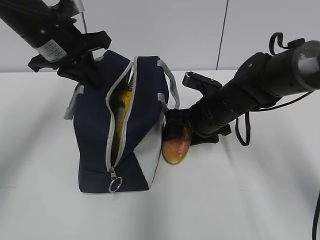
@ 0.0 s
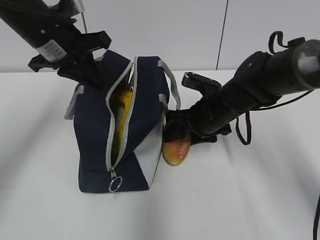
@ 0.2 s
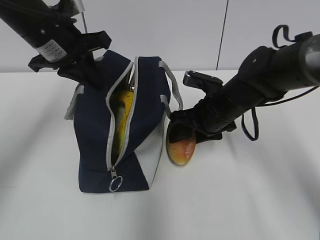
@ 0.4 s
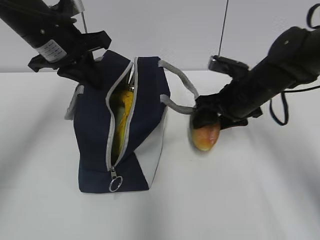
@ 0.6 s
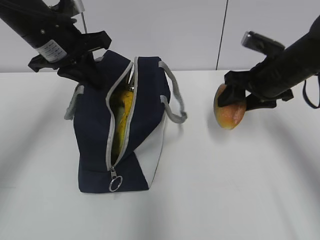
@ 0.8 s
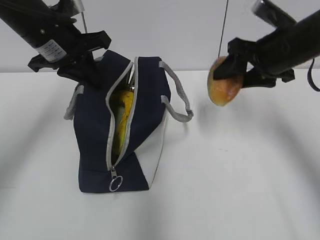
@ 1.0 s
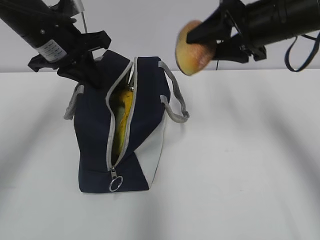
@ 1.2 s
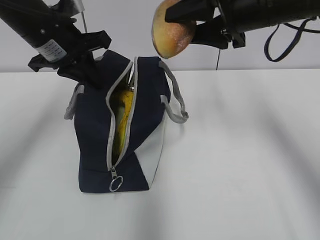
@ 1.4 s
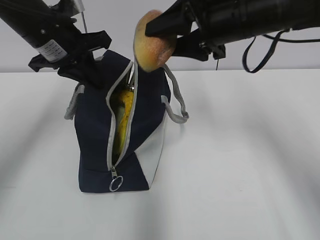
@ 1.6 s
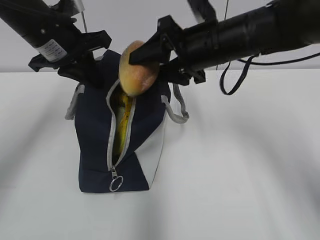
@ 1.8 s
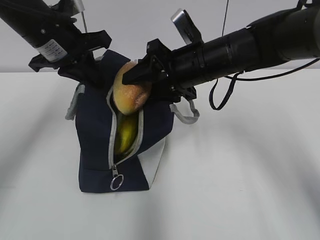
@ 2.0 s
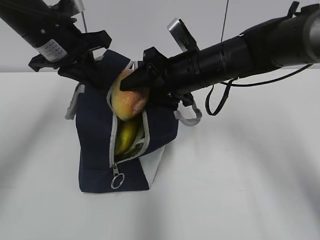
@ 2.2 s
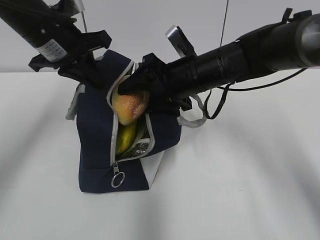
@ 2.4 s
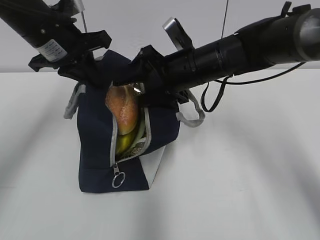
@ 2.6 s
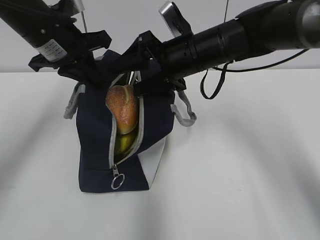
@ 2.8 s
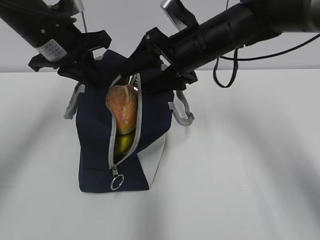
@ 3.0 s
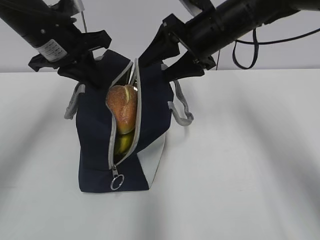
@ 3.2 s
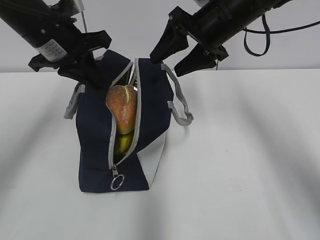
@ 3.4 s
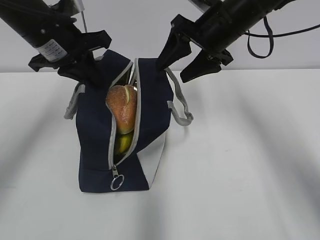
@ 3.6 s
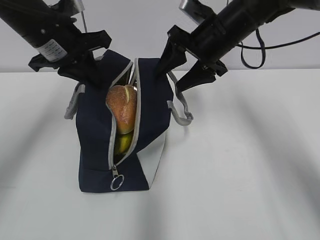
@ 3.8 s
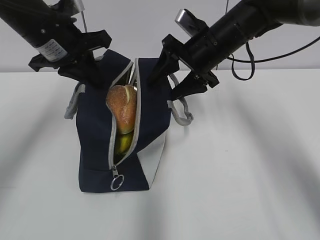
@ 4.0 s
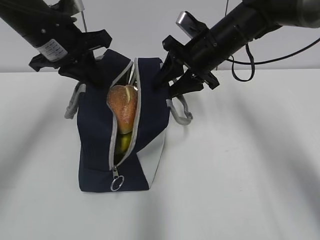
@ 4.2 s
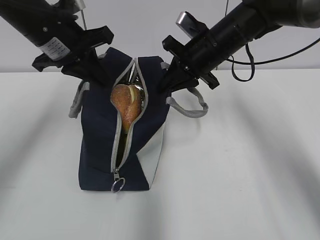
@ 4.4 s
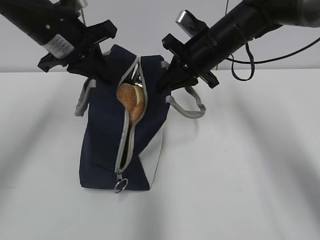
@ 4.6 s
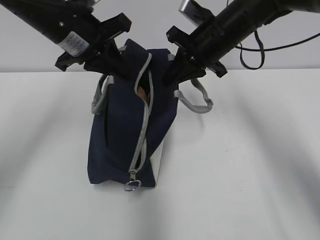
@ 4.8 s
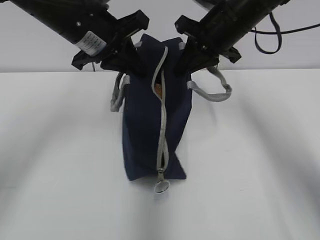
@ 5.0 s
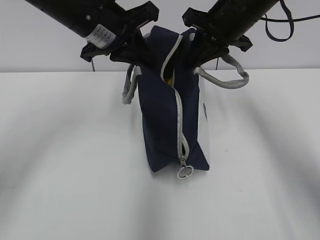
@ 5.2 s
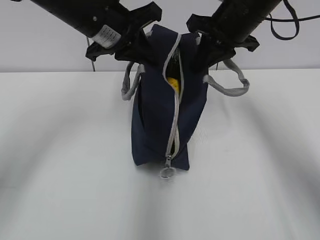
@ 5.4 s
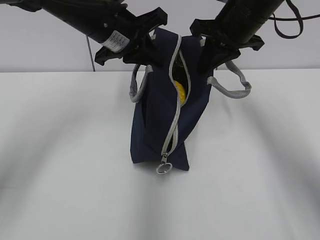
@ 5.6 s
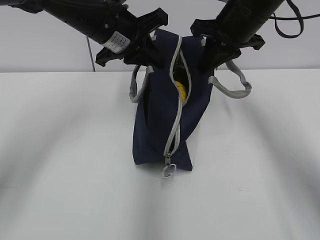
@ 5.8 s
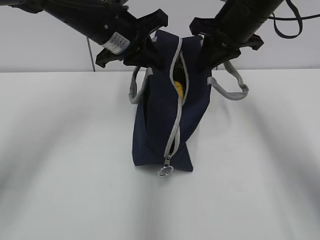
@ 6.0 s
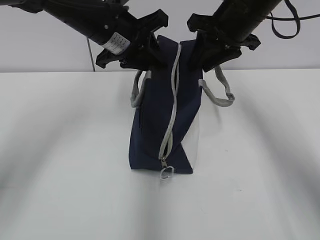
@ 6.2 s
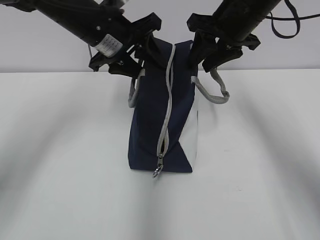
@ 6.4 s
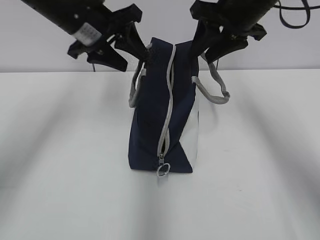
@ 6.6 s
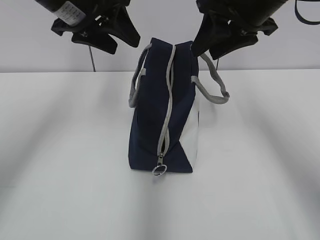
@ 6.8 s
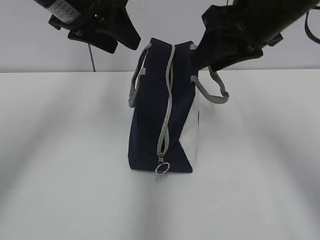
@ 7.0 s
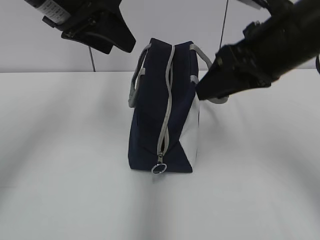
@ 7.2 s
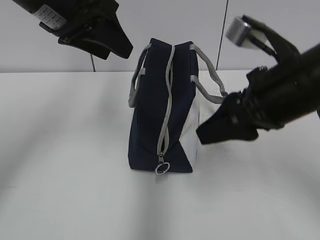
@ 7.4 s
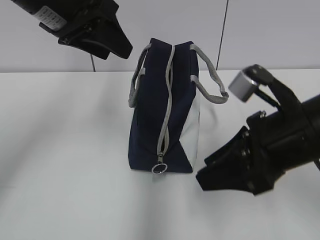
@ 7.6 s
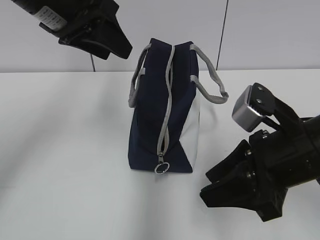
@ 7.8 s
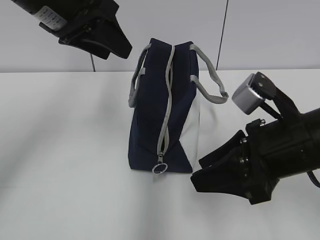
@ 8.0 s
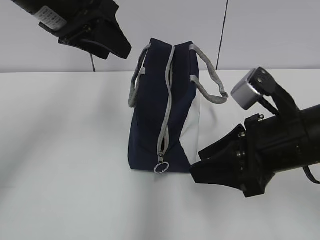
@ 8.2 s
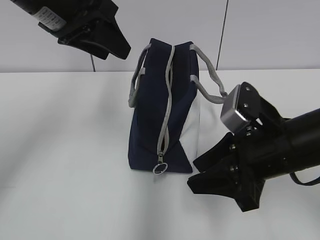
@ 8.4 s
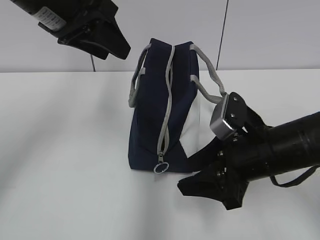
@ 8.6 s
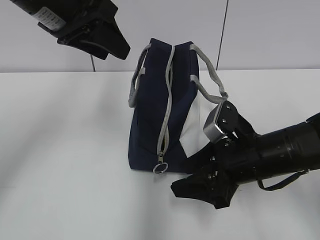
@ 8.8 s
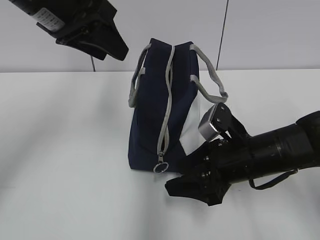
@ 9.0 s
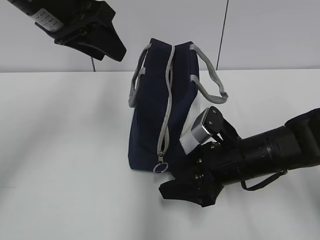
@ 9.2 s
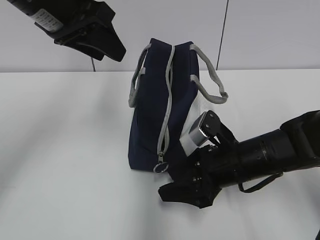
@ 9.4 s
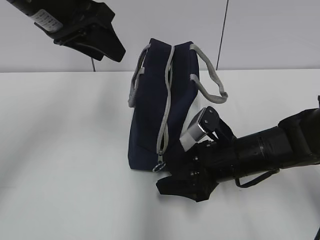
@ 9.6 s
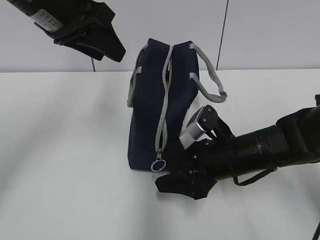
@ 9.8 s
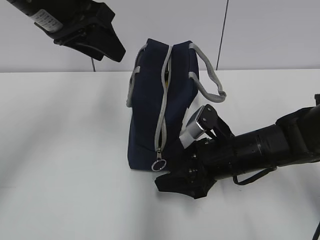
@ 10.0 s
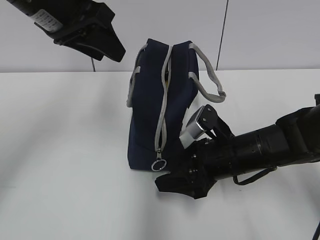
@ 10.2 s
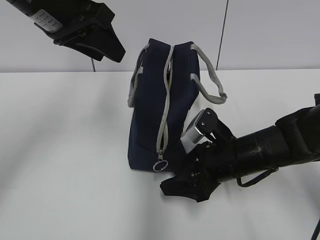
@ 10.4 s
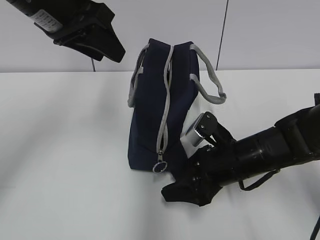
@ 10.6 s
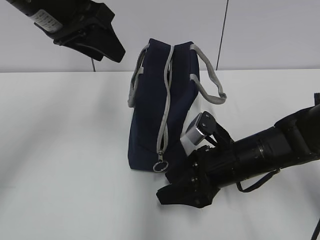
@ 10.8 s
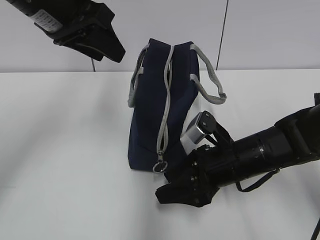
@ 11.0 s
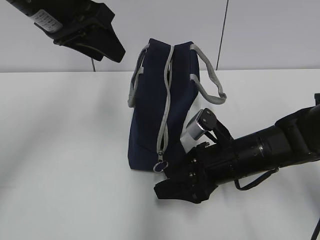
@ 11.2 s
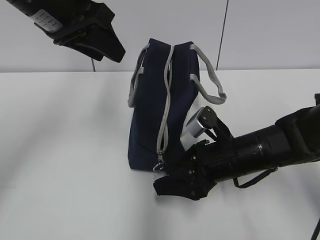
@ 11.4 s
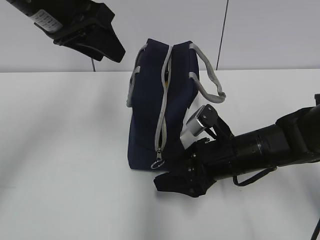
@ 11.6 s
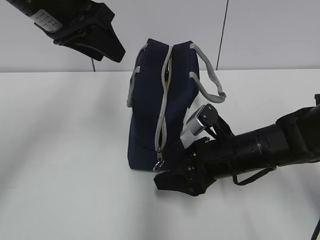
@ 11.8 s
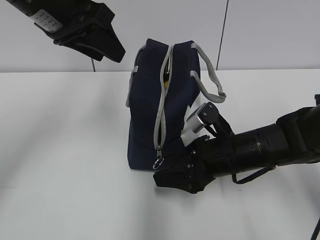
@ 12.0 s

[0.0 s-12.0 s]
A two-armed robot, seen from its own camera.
Step, 2.6 to 6.2 s: Move the lunch bag to the right.
0.0 to 1.6 s: The right gripper is displaced upward by approximately 15 cm.
1.6 to 3.0 s: The right gripper is displaced downward by about 5 cm.
3.0 to 4.4 s: The right gripper closes its fingers.
4.4 to 6.0 s: The right gripper moves upward, about 5 cm. Meanwhile the left gripper goes about 10 cm to the right.
6.0 to 7.6 s: The left gripper is displaced backward, upward and to the left by roughly 10 cm, and opens up. The right gripper travels backward by approximately 20 cm, and opens up.
7.6 to 9.0 s: The right gripper is displaced downward by approximately 10 cm.
9.0 to 12.0 s: There are only small adjustments of the grippers.

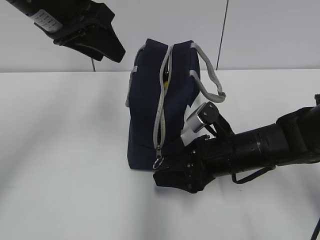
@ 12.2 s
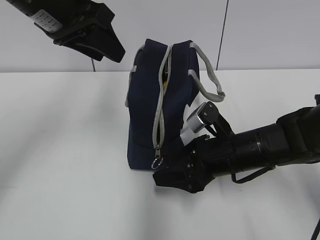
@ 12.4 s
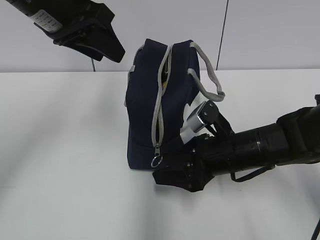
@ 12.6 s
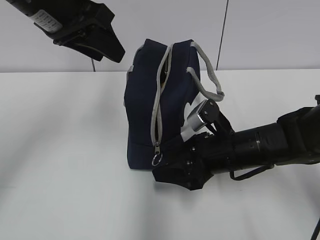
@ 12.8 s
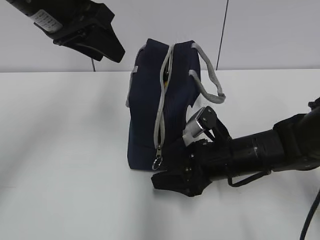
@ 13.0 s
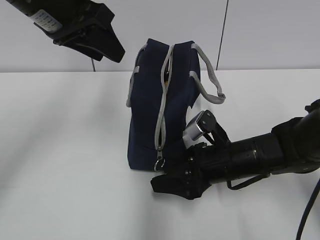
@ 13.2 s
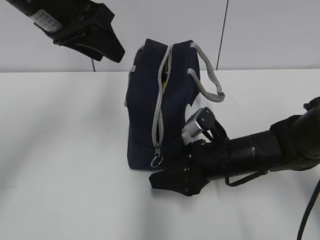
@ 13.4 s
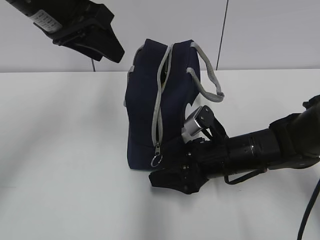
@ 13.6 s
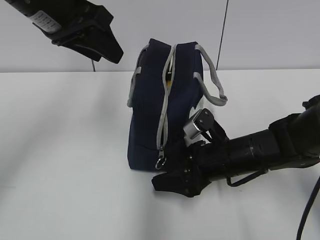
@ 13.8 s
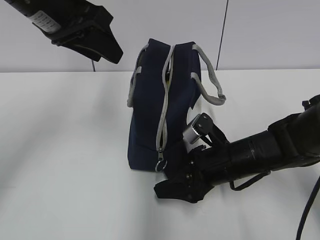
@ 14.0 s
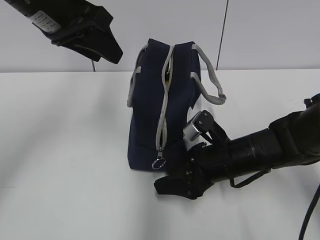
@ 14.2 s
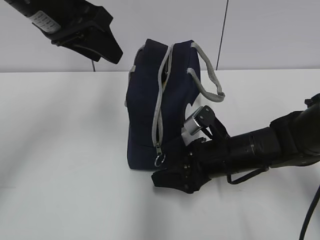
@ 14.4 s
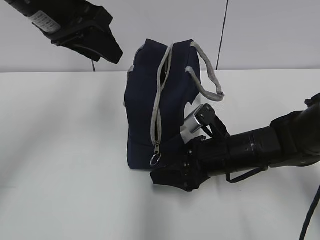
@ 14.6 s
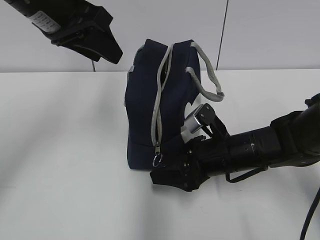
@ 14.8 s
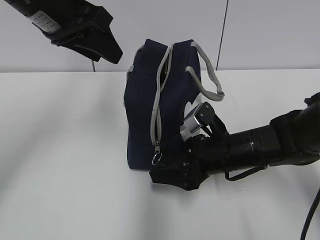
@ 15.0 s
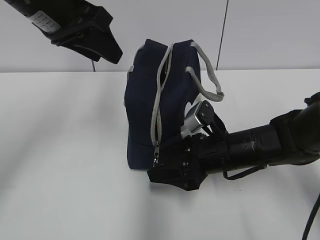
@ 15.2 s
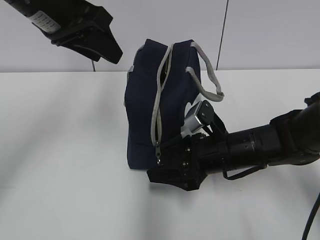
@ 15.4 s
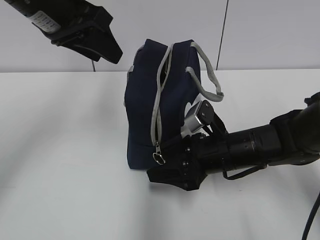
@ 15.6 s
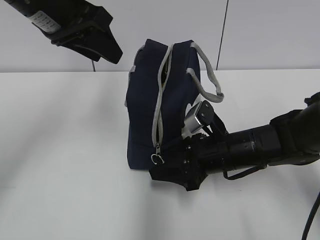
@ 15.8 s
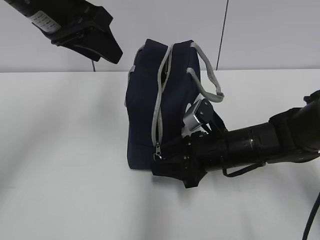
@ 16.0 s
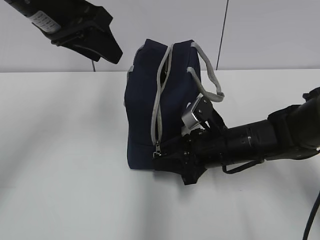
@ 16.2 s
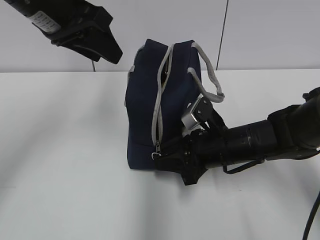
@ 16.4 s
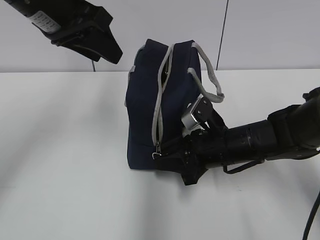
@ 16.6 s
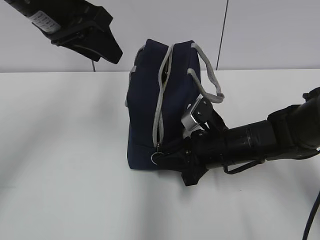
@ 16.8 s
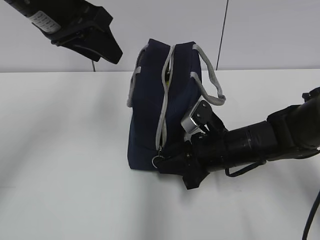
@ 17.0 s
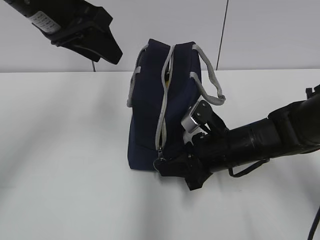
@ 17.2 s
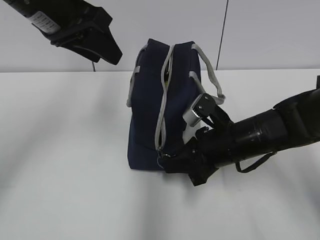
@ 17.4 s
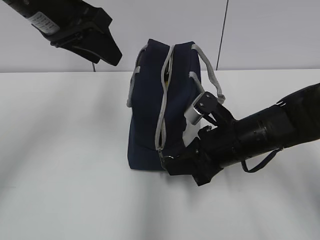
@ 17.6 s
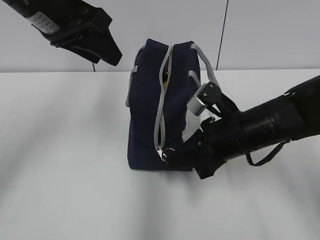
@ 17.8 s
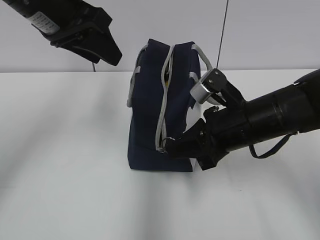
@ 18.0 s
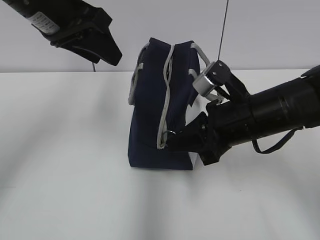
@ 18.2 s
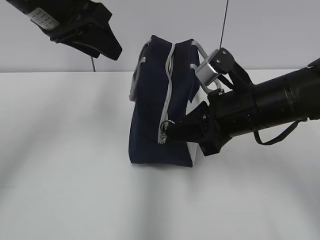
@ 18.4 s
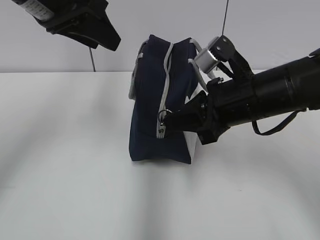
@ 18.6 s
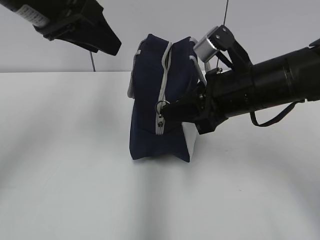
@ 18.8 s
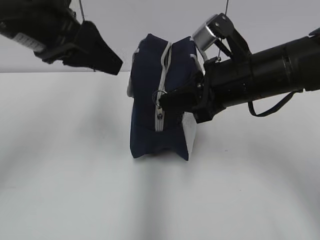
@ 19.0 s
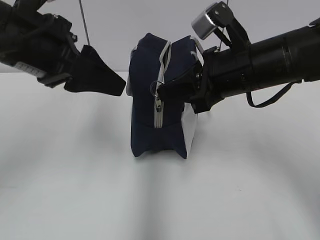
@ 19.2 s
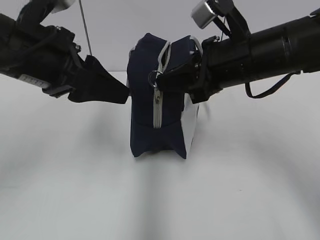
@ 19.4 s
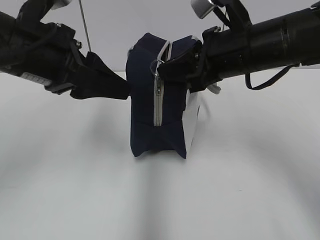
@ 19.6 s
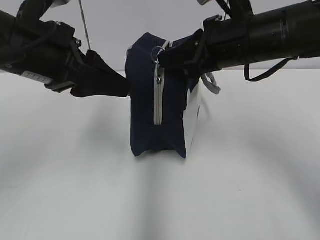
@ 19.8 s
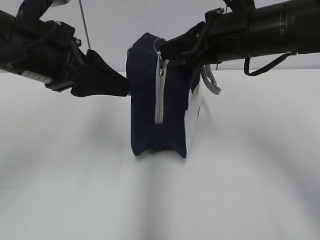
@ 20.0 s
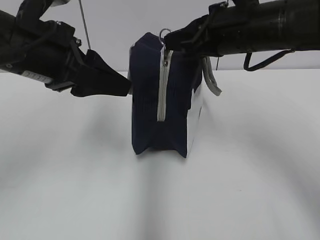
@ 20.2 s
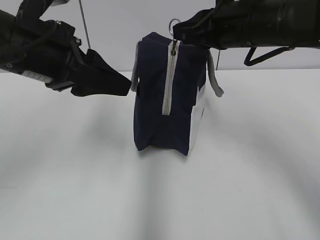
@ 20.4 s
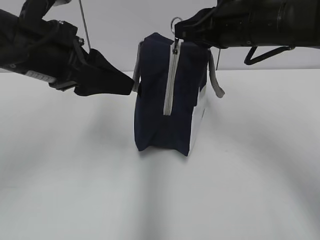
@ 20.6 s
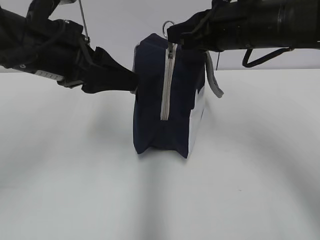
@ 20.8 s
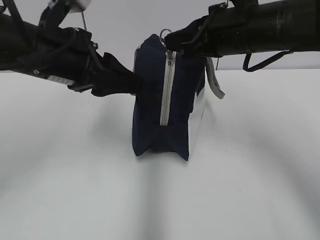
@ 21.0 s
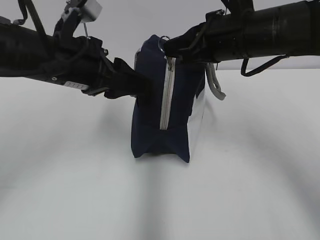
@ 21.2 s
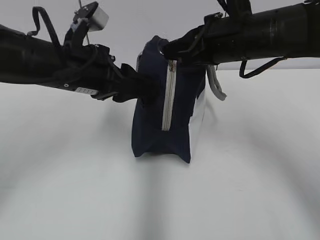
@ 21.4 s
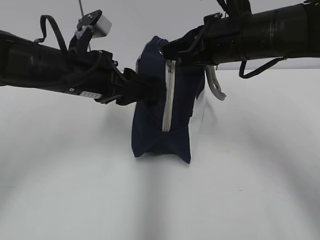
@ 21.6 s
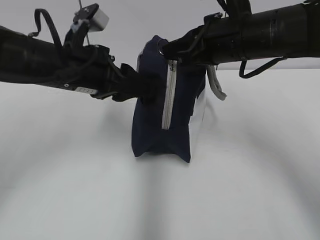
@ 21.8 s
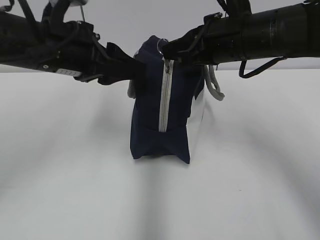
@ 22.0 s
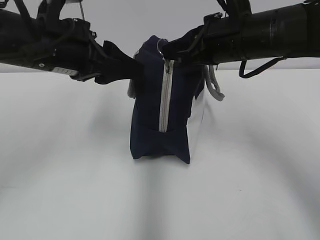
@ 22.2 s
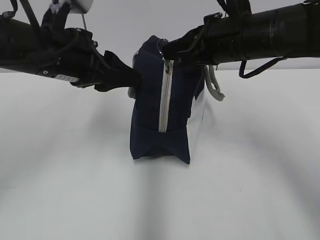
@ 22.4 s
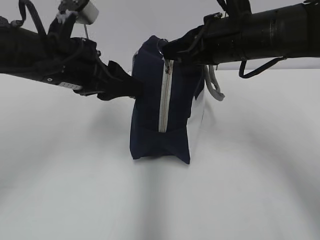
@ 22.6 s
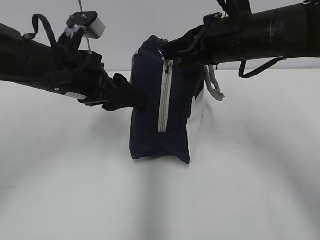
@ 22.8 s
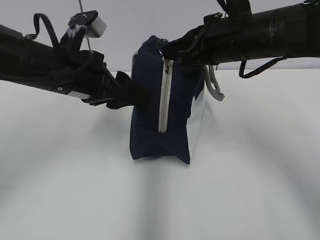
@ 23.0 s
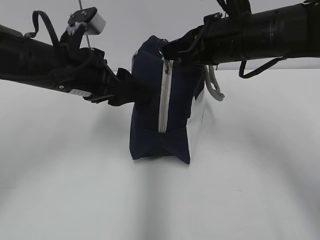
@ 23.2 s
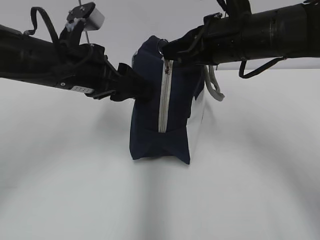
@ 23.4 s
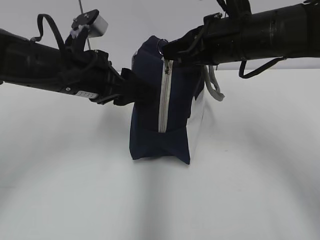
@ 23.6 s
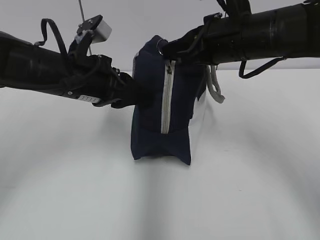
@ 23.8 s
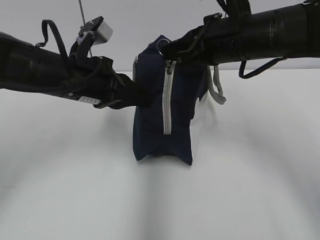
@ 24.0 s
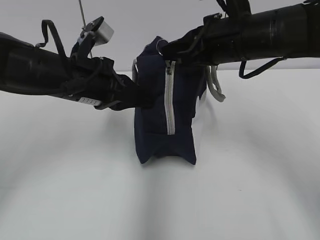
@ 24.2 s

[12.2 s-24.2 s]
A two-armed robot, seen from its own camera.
Step, 12.2 to 24.2 s: Grab the lunch bag with your left hand.
12.2 to 15.2 s: The grippers stay close to where they were, moving slightly.
15.2 to 16.6 s: The right gripper closes.
16.6 to 18.2 s: The right gripper goes approximately 10 cm upward.
18.2 to 19.8 s: The right gripper heads upward, covering some 10 cm. The left gripper moves backward, roughly 5 cm.
19.8 to 21.2 s: The left gripper changes place by approximately 5 cm.
21.2 to 22.6 s: There are only small adjustments of the grippers.
22.6 to 24.2 s: The left gripper closes its fingers.
